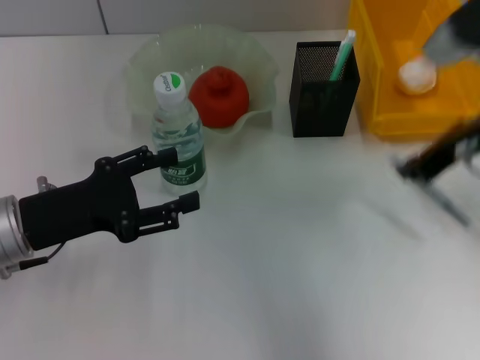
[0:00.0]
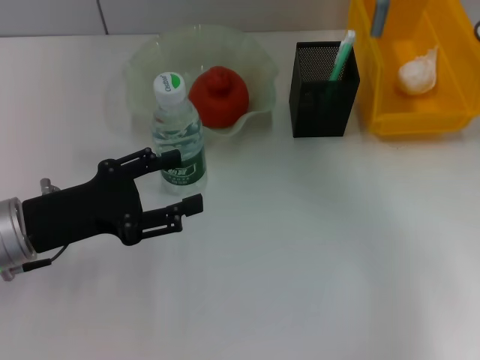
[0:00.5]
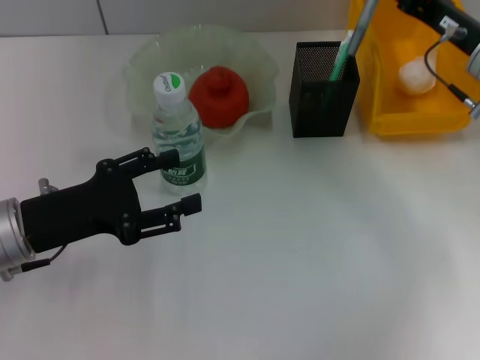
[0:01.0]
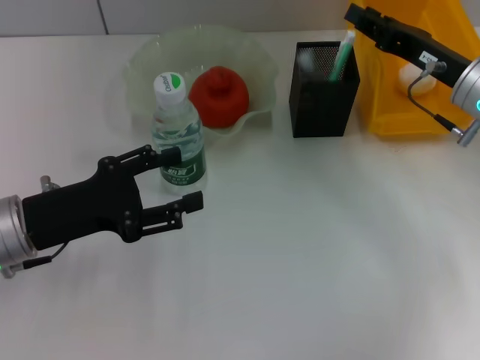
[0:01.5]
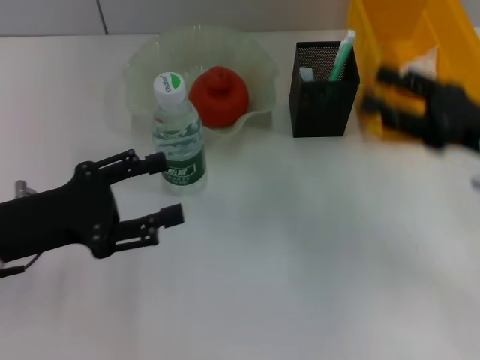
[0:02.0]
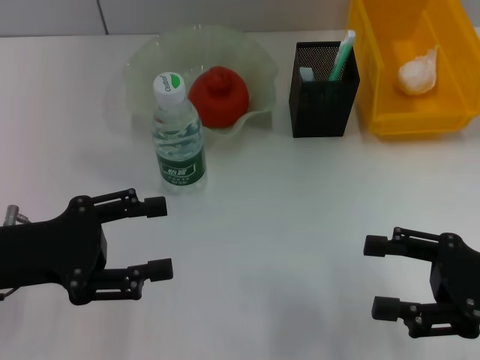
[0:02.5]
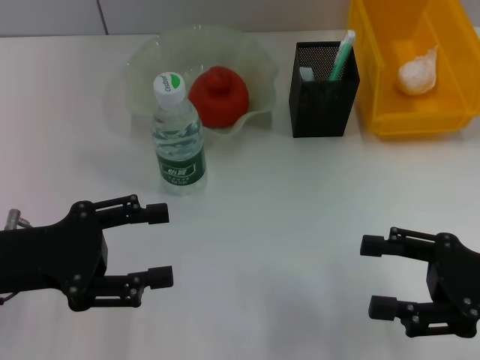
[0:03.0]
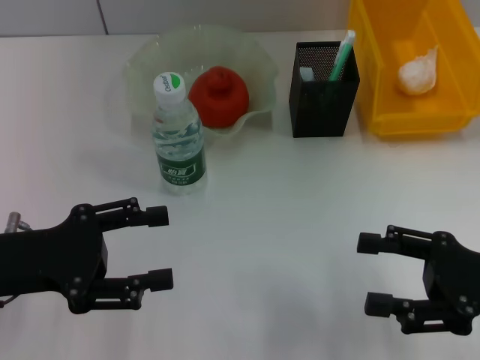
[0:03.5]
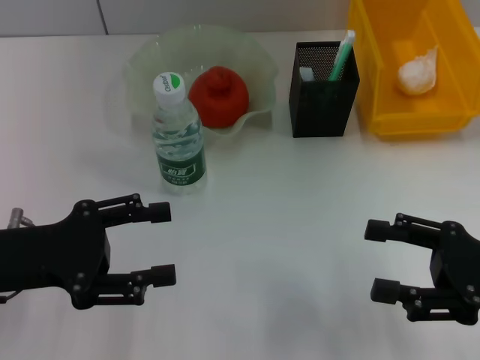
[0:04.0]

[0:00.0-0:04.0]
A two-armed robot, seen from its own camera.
Step, 0:00.0 to 0:01.5: Place the gray glue into the pen holder with the right hand.
0:00.0 to 0:02.0: The right gripper goes roughly 10 cm downward, to the right and backward, and opens.
0:02.0 to 0:04.0: The right gripper shifts about 10 cm backward.
